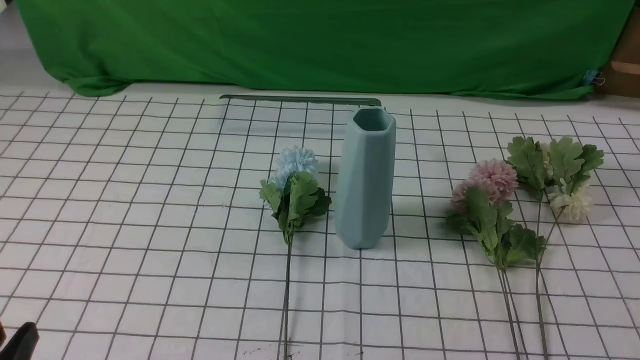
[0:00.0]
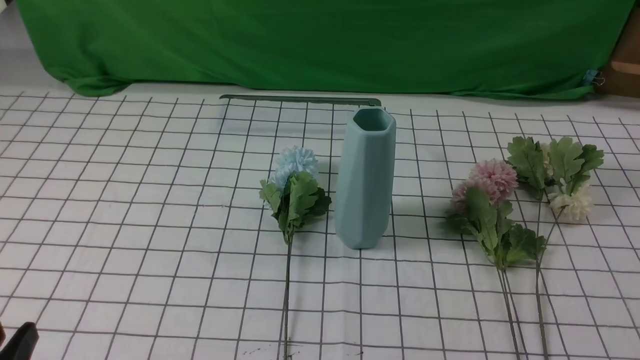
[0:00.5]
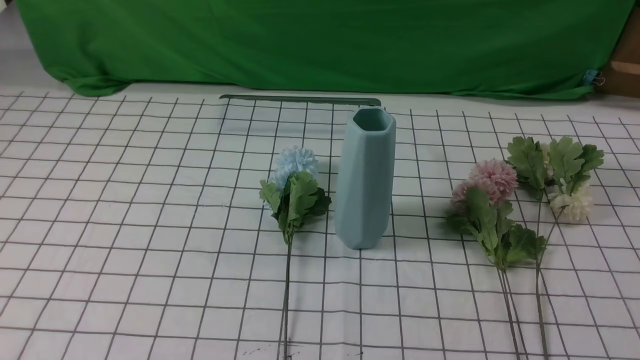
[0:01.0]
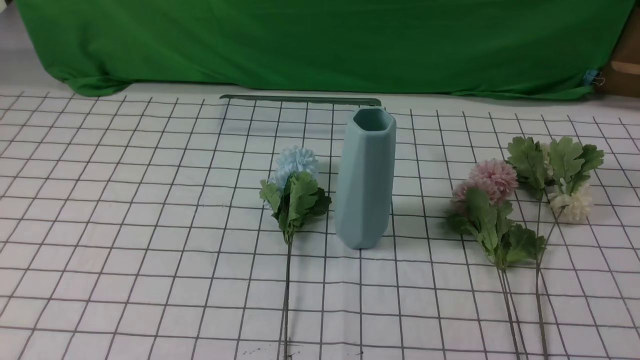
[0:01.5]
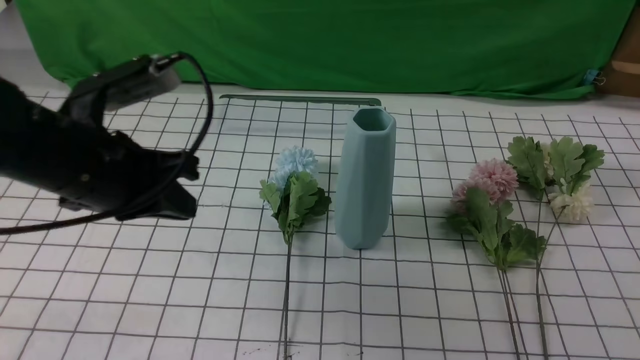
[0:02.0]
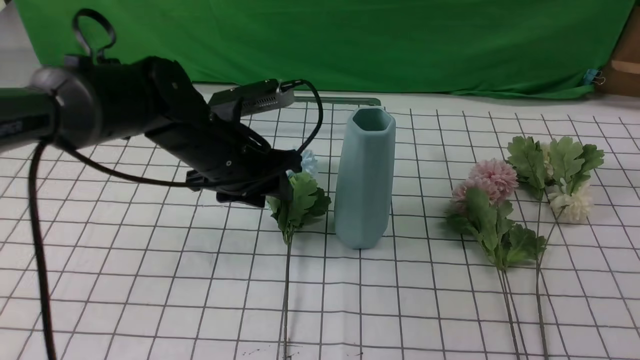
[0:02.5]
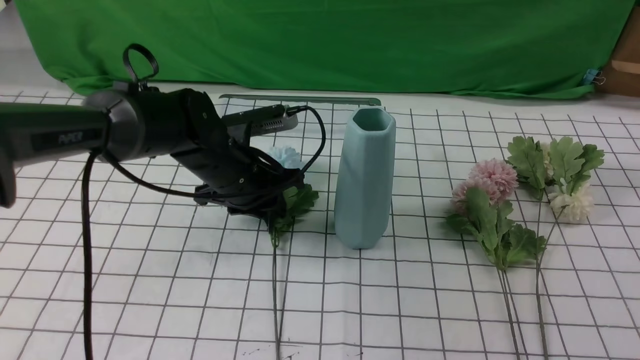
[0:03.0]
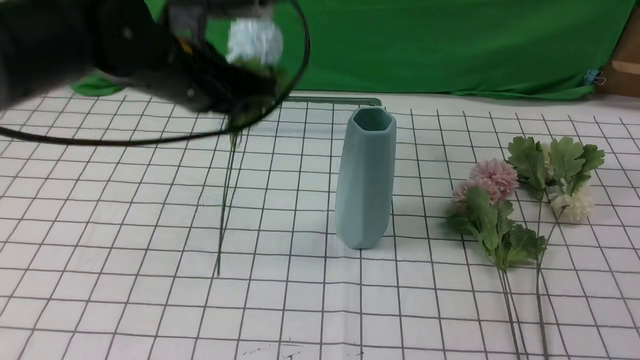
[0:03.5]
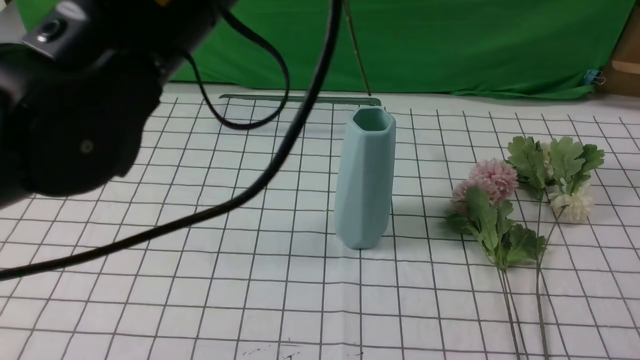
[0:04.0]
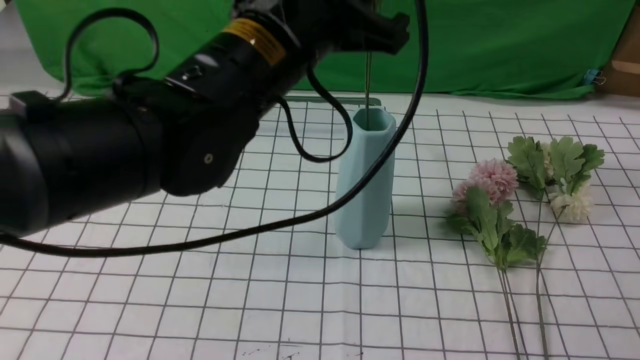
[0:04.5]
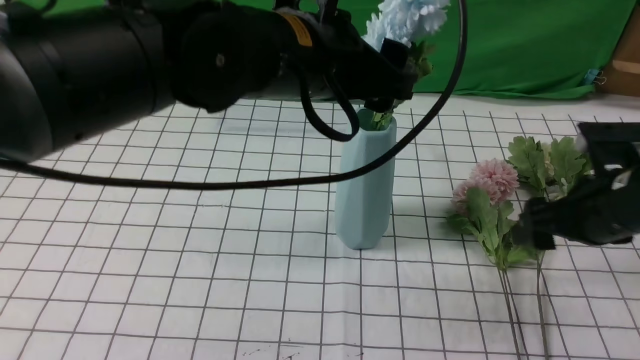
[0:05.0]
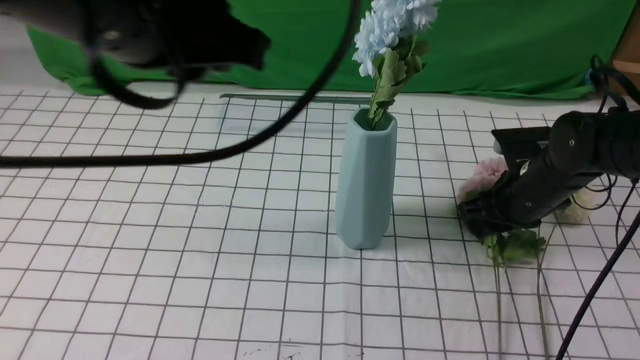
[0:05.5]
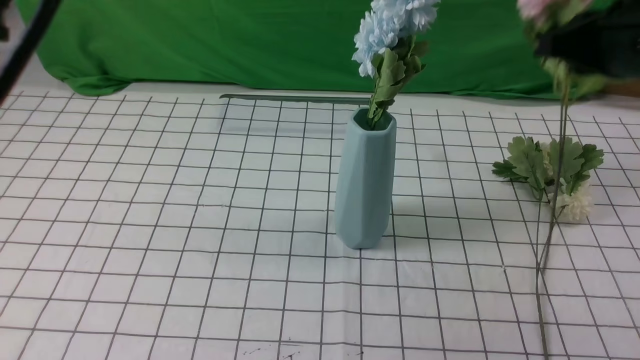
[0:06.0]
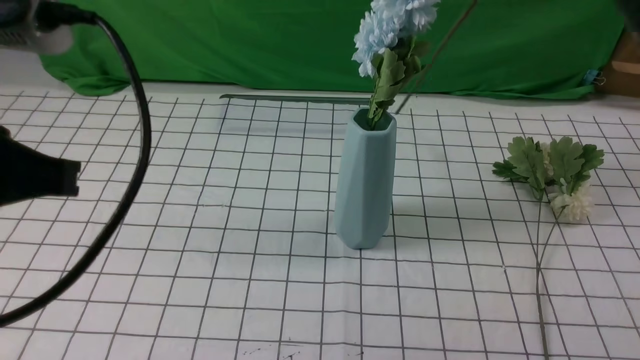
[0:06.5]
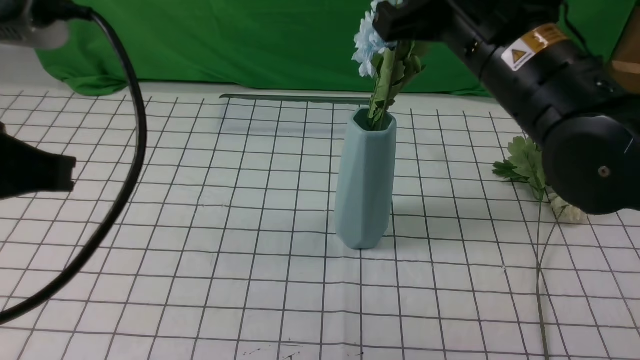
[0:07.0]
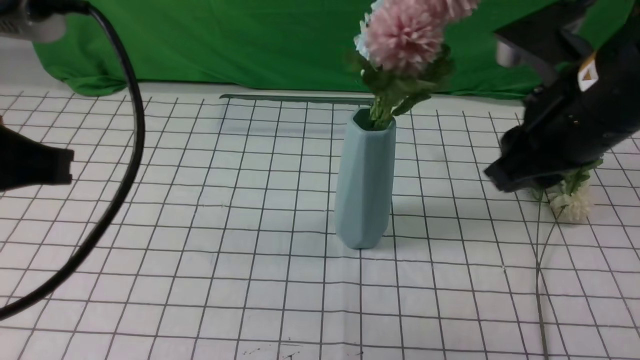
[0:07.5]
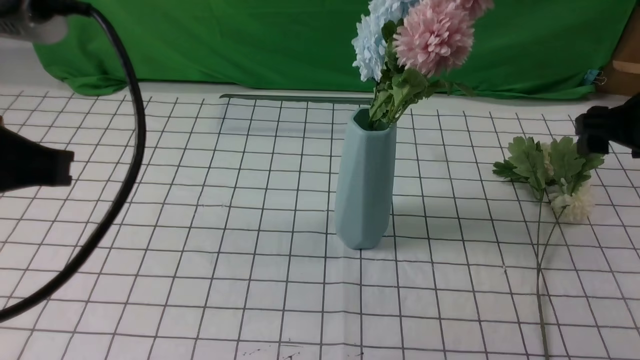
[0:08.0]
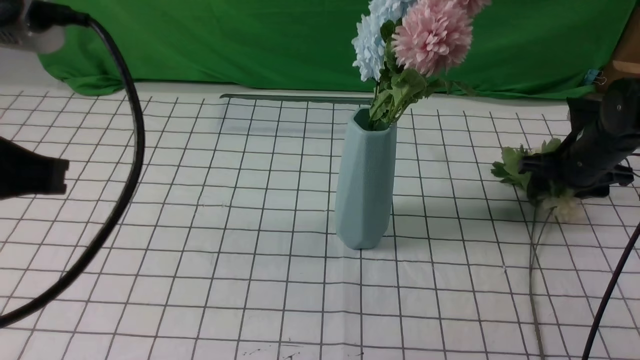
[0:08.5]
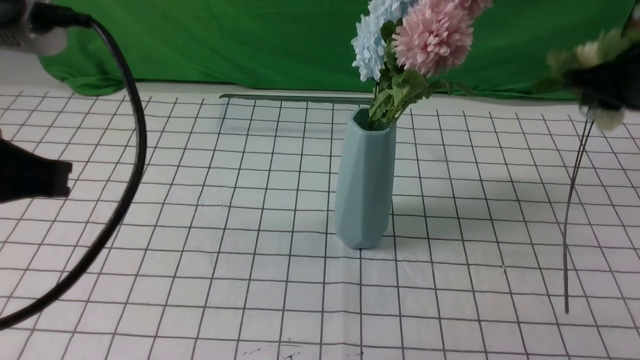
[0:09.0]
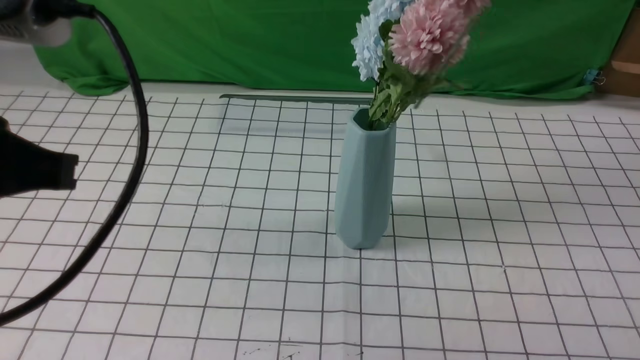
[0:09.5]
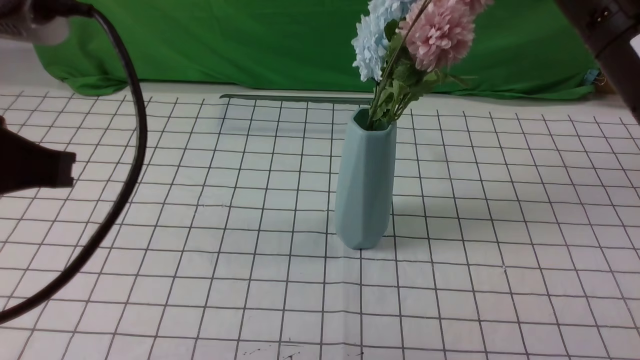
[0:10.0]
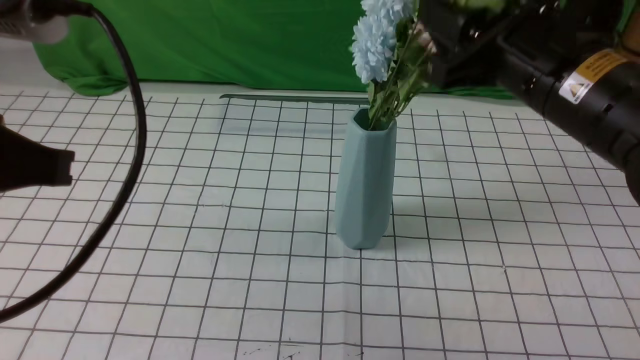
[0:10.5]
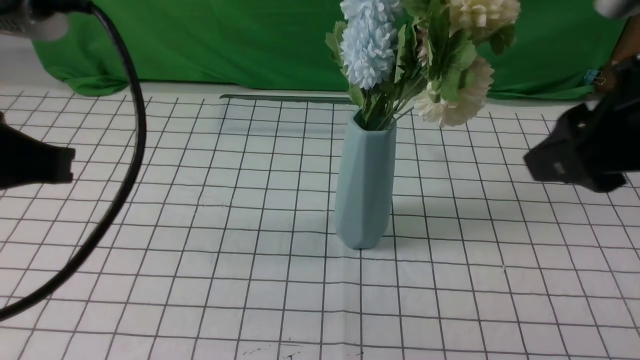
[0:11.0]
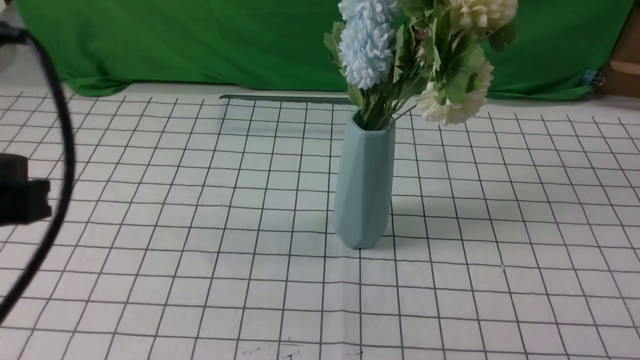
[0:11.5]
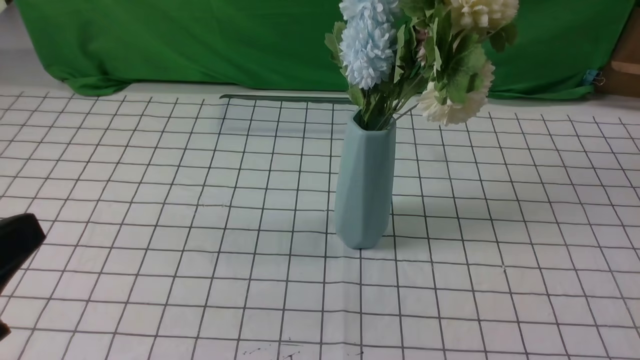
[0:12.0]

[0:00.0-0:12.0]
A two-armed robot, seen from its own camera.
Task of the whole recording: insert the flowers into the vase on the table with the white tablecloth.
Step, 0:00.0 to 0:03.0: use the left arm to grab a bunch of fresh flowers.
Step, 0:03.5 to 0:05.0: use the left arm to insert the flowers into the vase.
Step, 0:06.0 to 0:07.0: use the right arm to insert the flowers into the vase.
Step, 0:07.5 to 0:08.5: use the right arm to grab a bunch of fresh flowers.
Step, 0:09.0 to 0:10.5: use the right arm to insert the flowers into the vase.
0:00.0 to 0:02.0: The right gripper heads upward, covering about 10 cm. Meanwhile the left gripper travels forward and upward by approximately 25 cm, and closes.
0:02.0 to 0:04.0: The left gripper goes approximately 15 cm upward and to the right, and opens, then closes once more. The right gripper moves roughly 5 cm, and opens.
0:04.0 to 0:06.0: The left gripper is displaced backward and to the left by roughly 15 cm, and opens, then closes again. The right gripper goes approximately 20 cm forward, and closes.
0:06.0 to 0:08.0: The left gripper moves downward, approximately 5 cm. The right gripper heads downward, to the right and forward, covering approximately 20 cm, and opens up.
0:08.0 to 0:10.0: The right gripper moves up and down over about 30 cm, changing direction 2 times, and closes its fingers.
0:10.0 to 0:12.0: The left gripper goes roughly 10 cm downward and backward. Meanwhile the right gripper travels backward and to the right by about 30 cm, and opens and closes again.

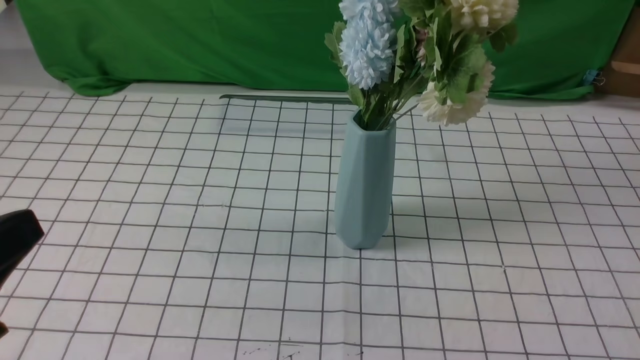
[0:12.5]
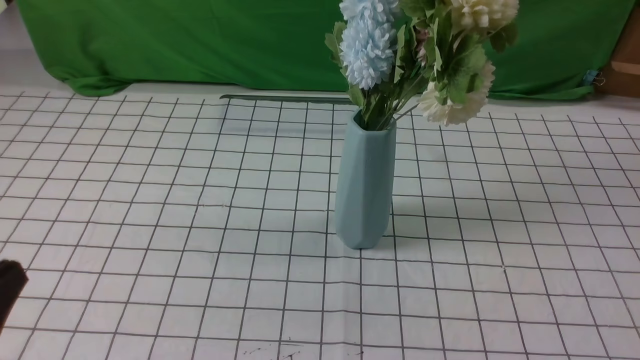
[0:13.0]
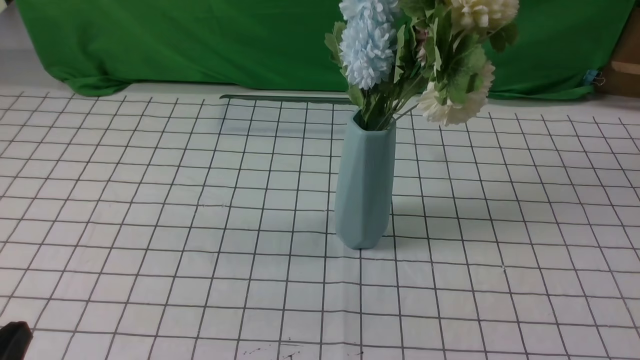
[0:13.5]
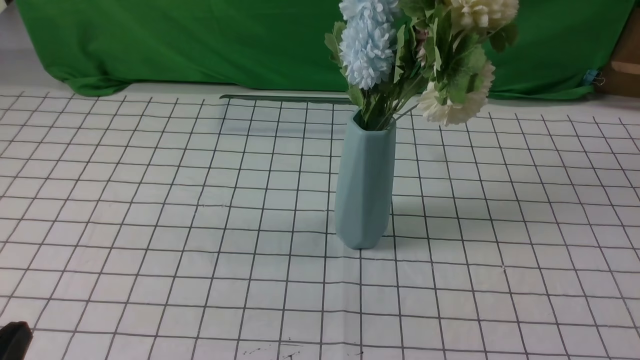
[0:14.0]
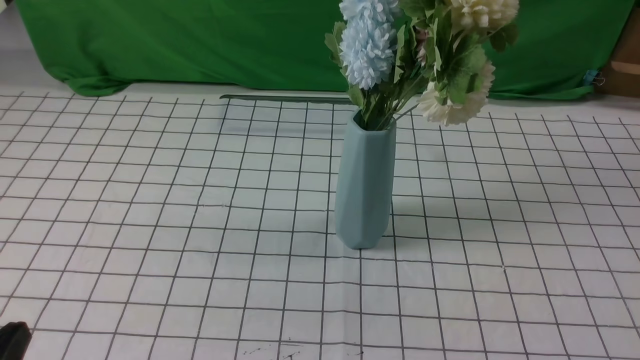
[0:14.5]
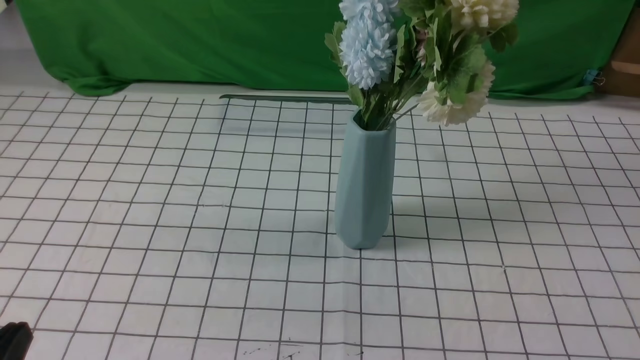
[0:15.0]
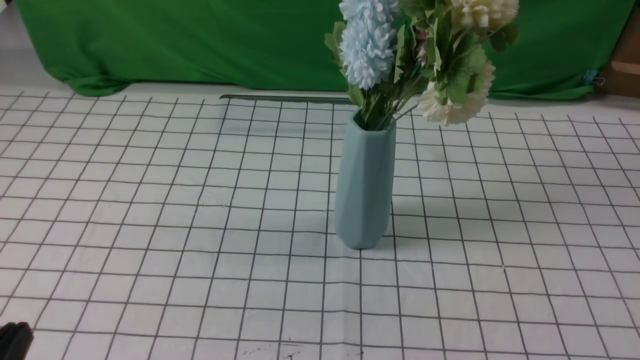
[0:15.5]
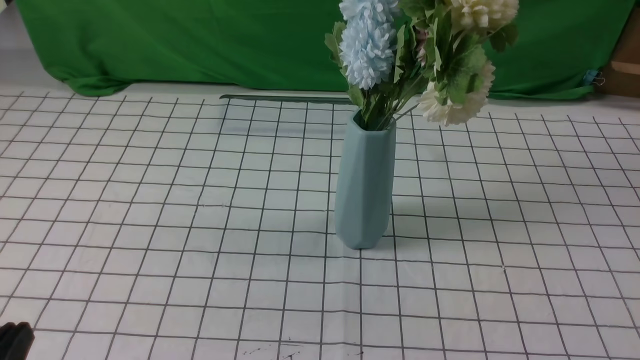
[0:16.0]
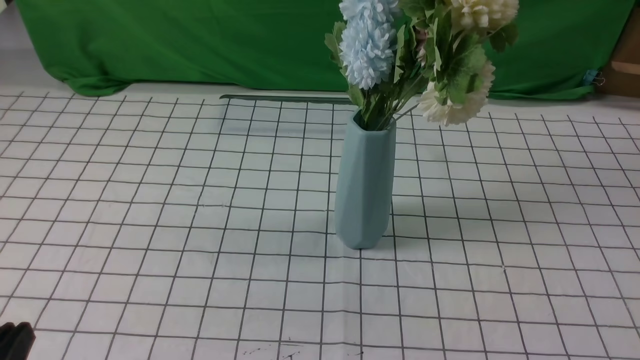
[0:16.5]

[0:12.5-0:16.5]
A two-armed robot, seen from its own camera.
Task of the whole recording: insert the flowers into the vase on the table with the white tablecloth.
0:12.5 to 0:14.5: The left gripper travels downward by some 15 cm.
